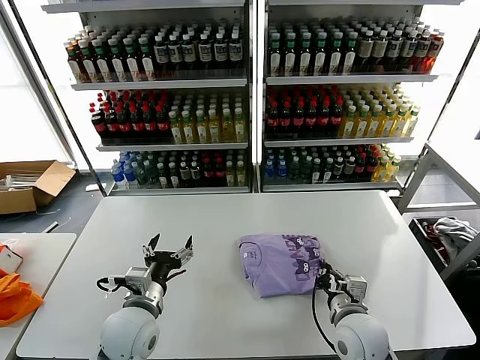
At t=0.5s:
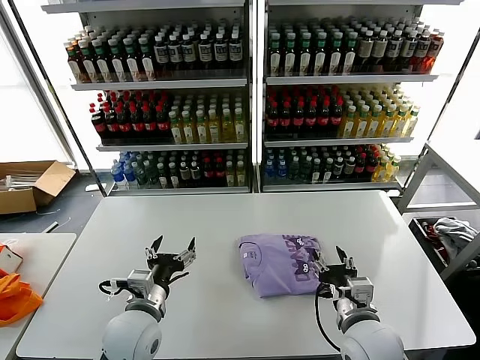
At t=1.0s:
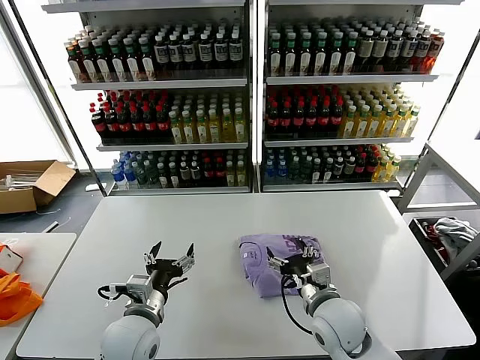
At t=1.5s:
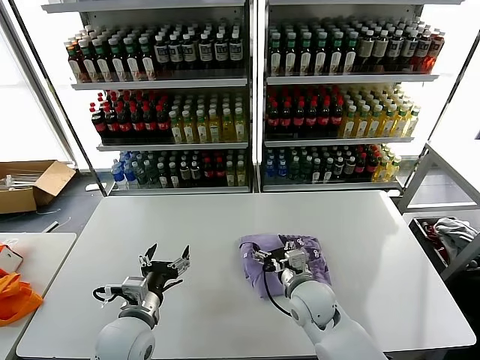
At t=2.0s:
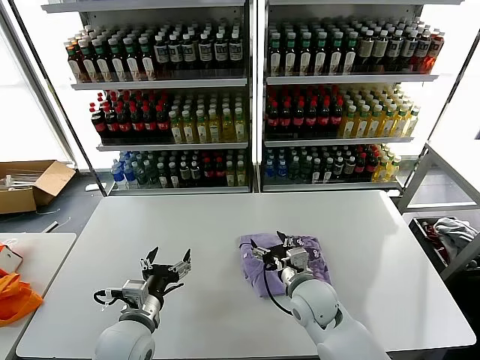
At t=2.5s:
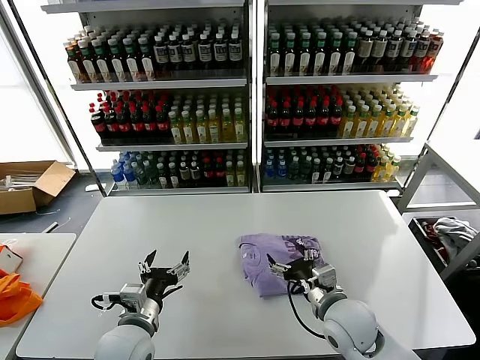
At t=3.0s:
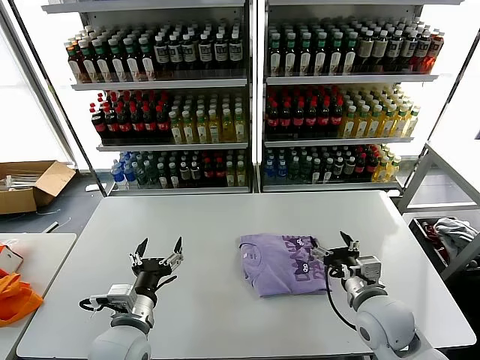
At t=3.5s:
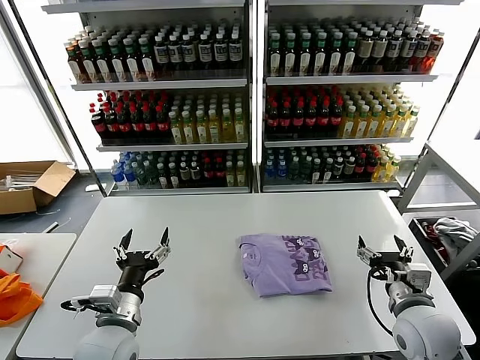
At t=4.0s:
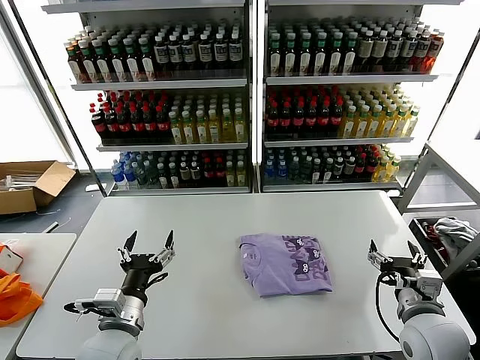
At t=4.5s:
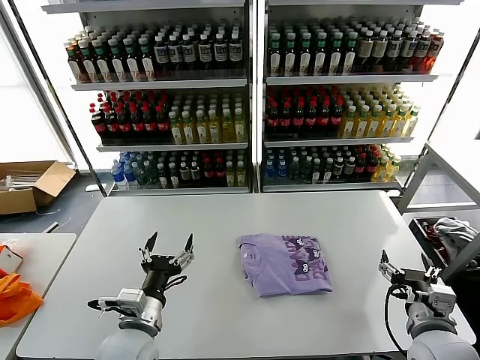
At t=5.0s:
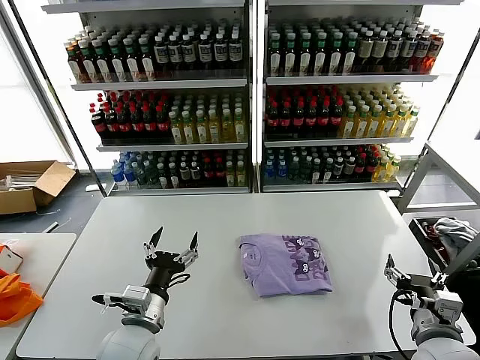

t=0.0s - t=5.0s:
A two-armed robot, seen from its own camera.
Task of the whole recording: fold and organize the clothes.
Step, t=0.0s - t=2.0s: Drag the clothes to the center of the table.
t=0.0s - t=2.5s: The right gripper travels forward and back again, approximately 10 cm each way, and opens its fingers.
t=2.5s - t=5.0s: The right gripper goes roughly 15 cm to the right and backward.

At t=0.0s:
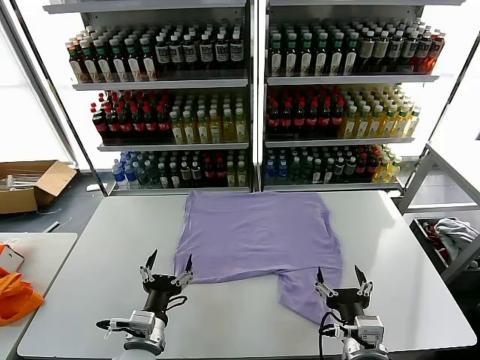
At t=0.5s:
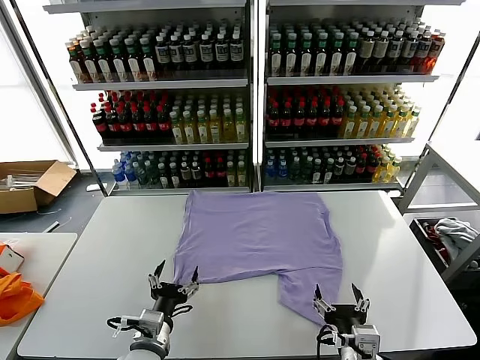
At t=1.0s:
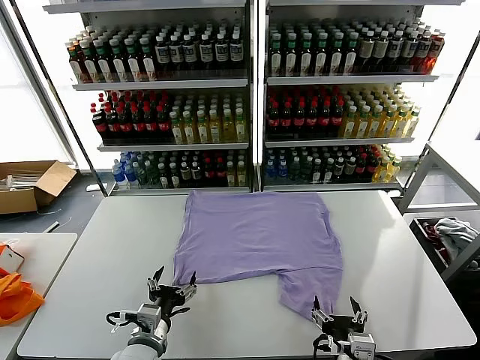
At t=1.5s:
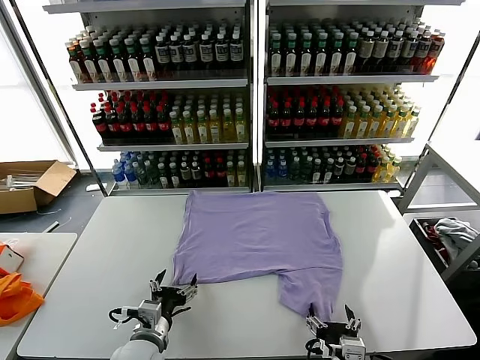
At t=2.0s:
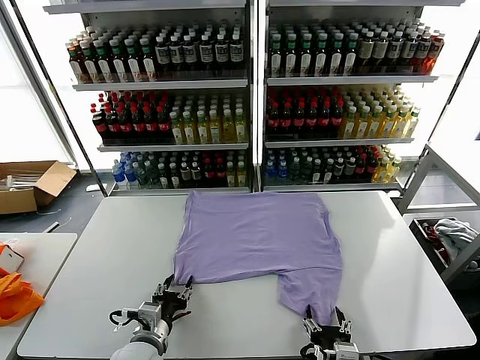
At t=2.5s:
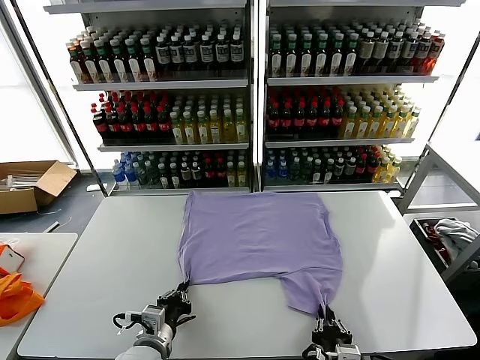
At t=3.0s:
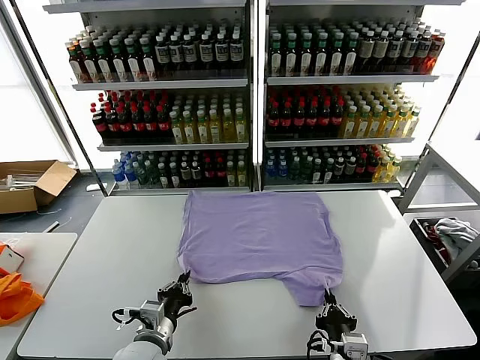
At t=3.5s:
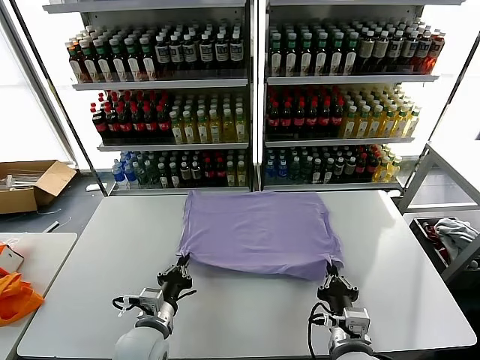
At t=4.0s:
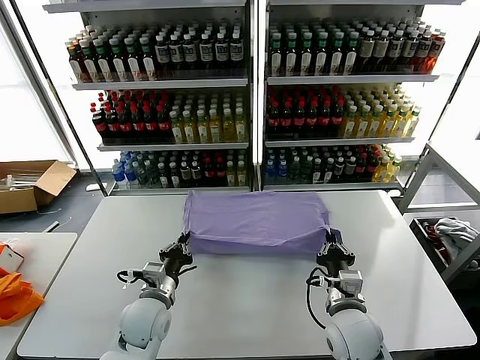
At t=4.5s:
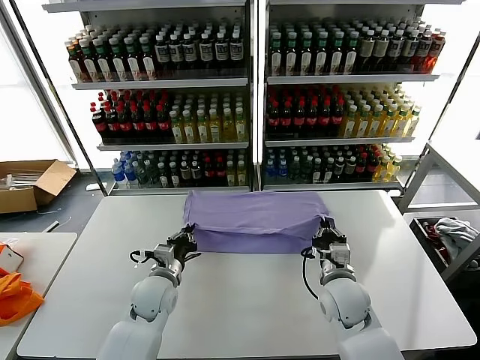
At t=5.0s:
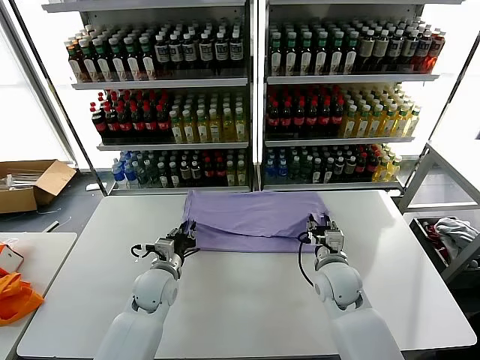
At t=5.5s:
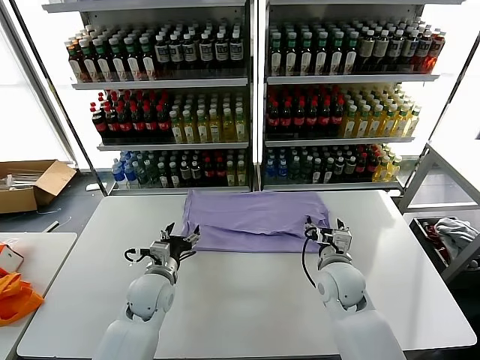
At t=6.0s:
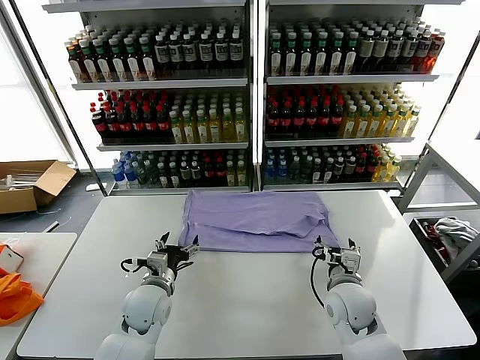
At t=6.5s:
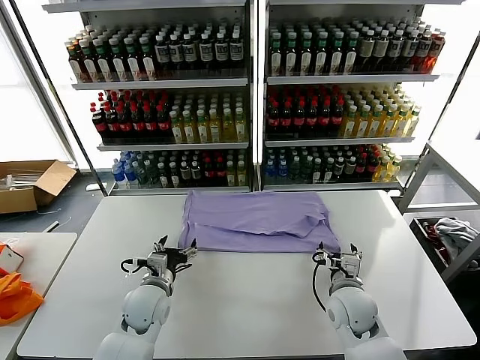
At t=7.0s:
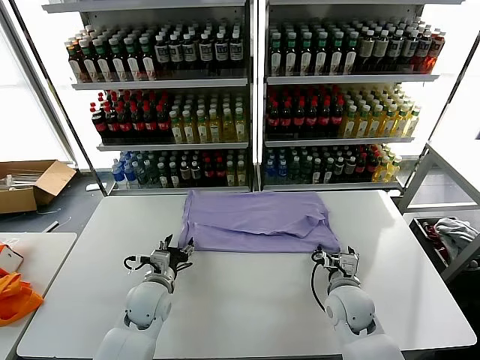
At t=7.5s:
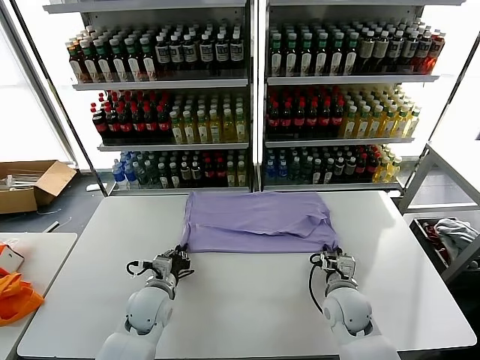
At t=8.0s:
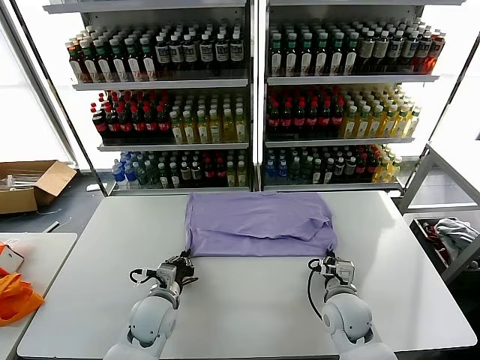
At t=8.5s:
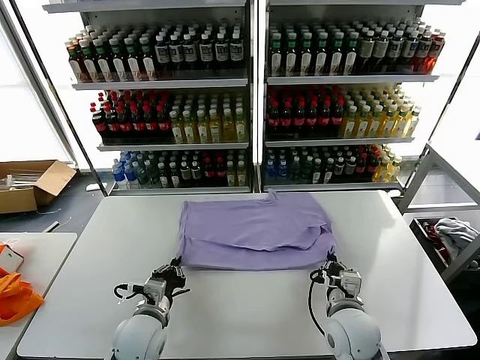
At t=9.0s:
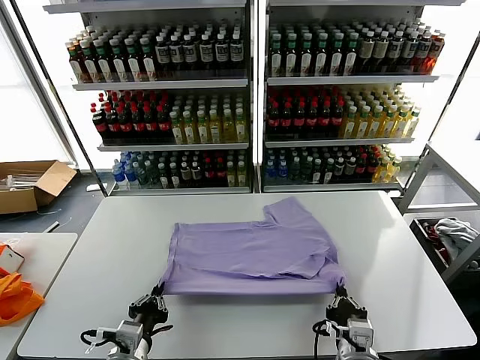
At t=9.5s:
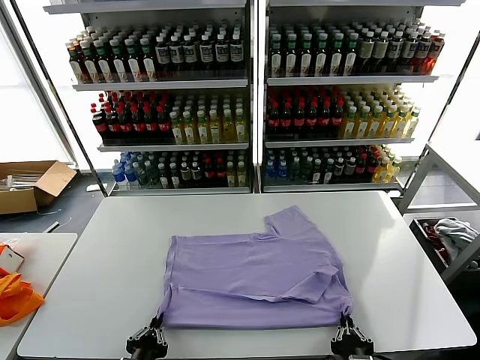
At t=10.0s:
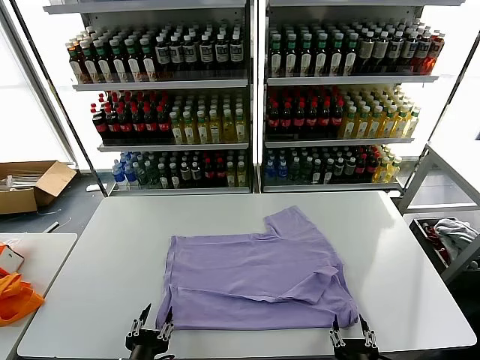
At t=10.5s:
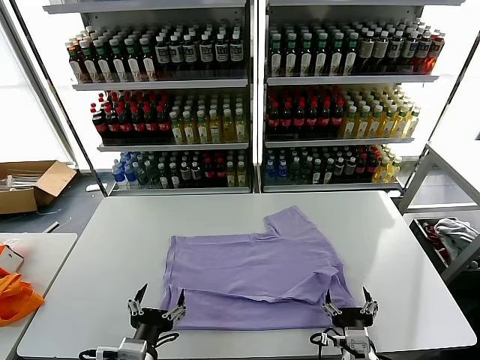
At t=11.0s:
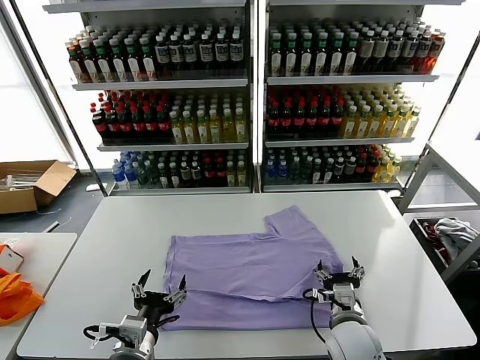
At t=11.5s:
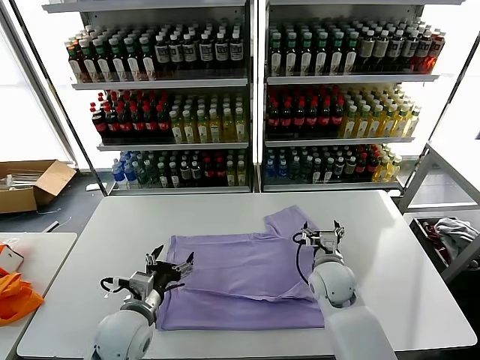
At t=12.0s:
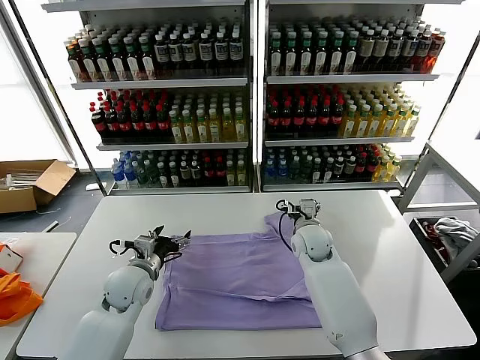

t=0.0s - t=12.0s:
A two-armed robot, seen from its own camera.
Task of the whole recording: fold and organize the clothes.
Step, t=0.0s - t=2.5s: use both grippers simultaneously to clamp the lower edge of the clothing fabric.
Step, t=3.0s - t=5.0s: use both grippers to drag the lower edge of the fabric forward and fold it over the upper edge.
Step, t=5.5s - t=9.5s: Drag the clothes downward with both gripper.
t=2.0s - t=4.0s: The left gripper moves forward, roughly 10 cm, and closes up, while the right gripper travels forward by about 15 cm, and closes up.
t=4.0s - t=6.0s: The left gripper opens its fingers; the right gripper opens.
t=6.0s - t=8.0s: The left gripper closes up, while the right gripper closes its fingers.
t=8.0s - t=10.0s: Both grippers move backward, approximately 20 cm. The left gripper opens, while the right gripper opens.
t=10.0s - t=12.0s: Both grippers travel together forward, about 30 cm. The left gripper opens its fingers.

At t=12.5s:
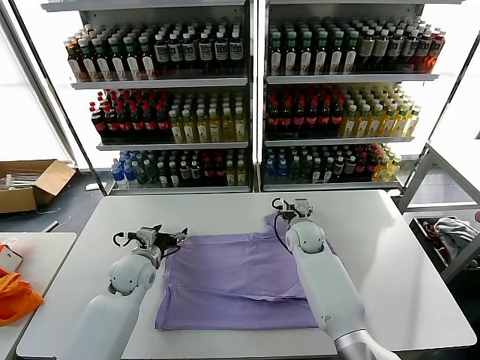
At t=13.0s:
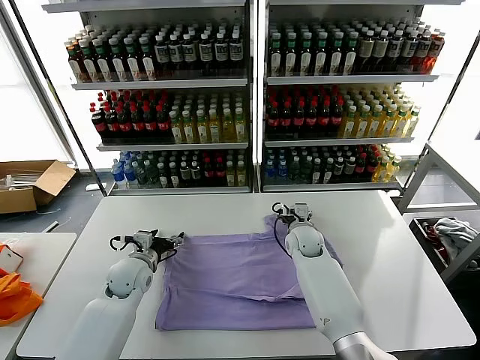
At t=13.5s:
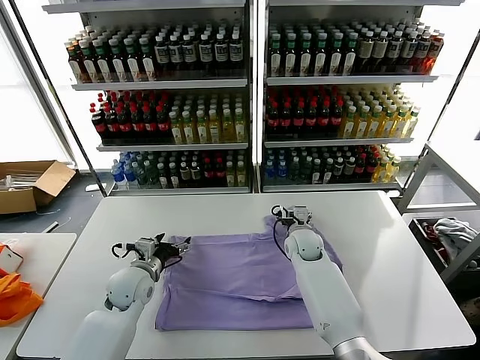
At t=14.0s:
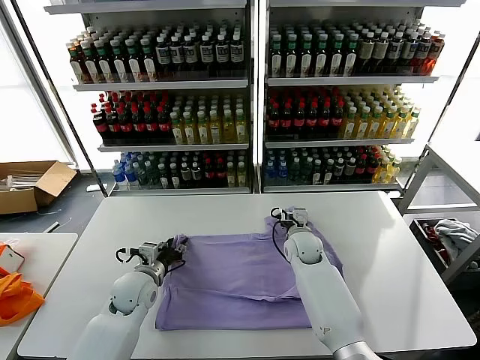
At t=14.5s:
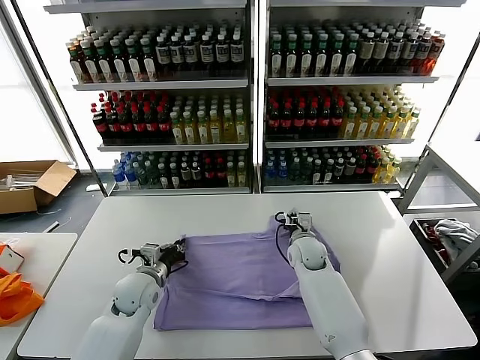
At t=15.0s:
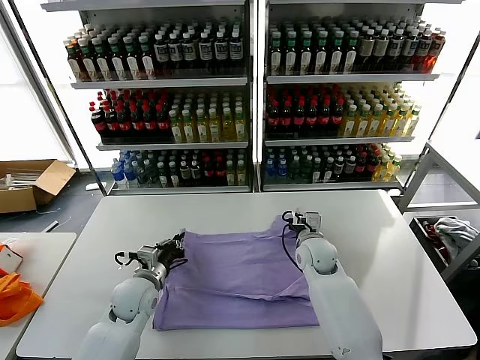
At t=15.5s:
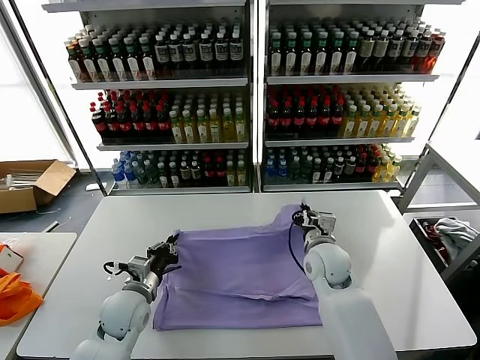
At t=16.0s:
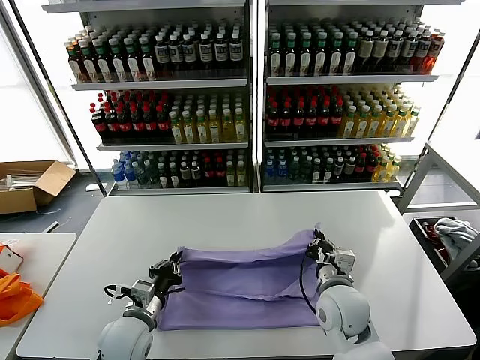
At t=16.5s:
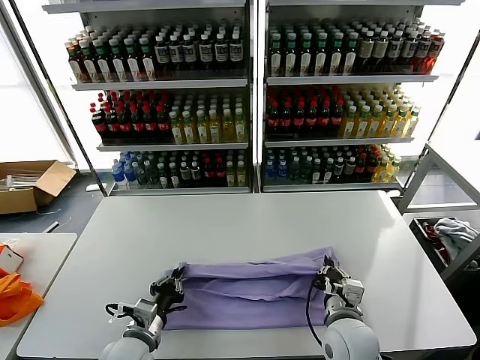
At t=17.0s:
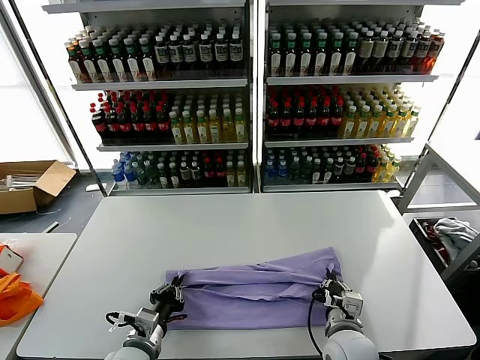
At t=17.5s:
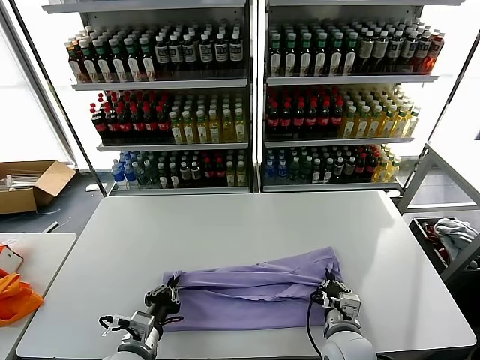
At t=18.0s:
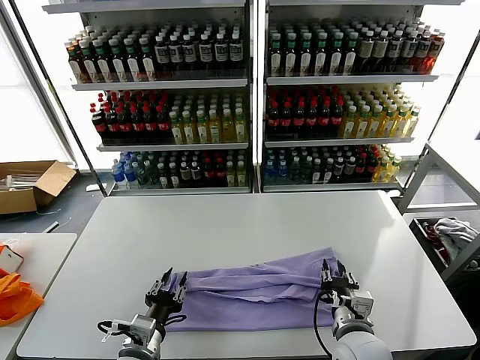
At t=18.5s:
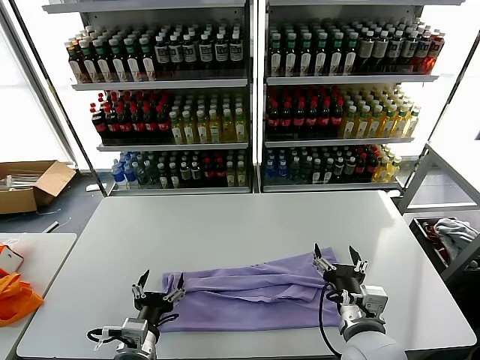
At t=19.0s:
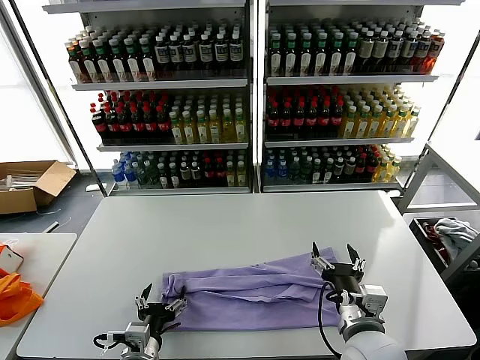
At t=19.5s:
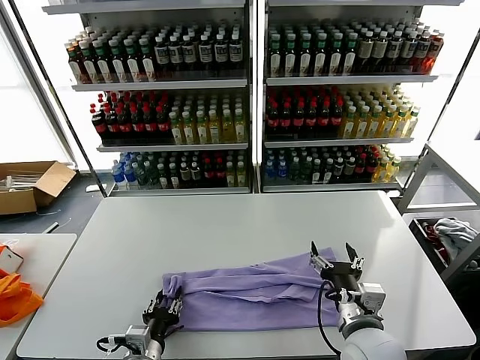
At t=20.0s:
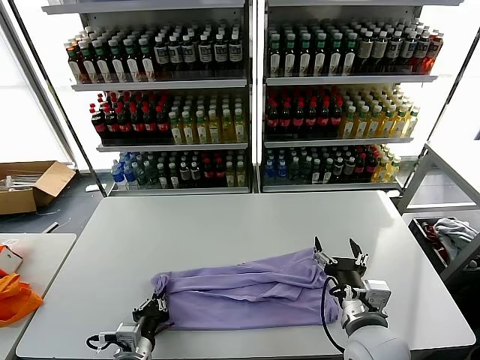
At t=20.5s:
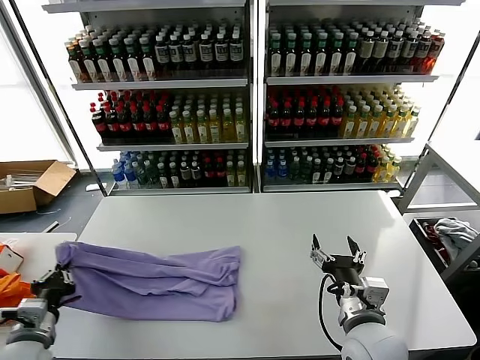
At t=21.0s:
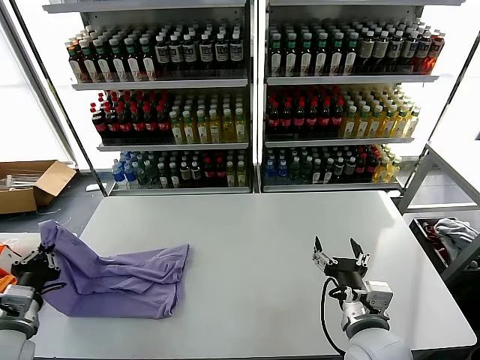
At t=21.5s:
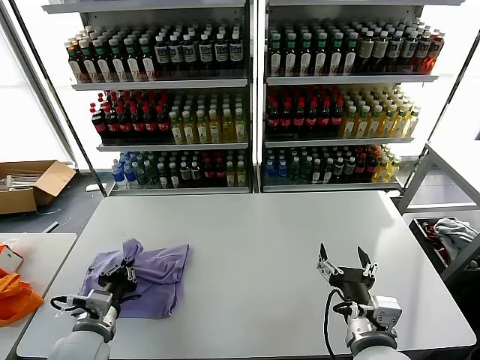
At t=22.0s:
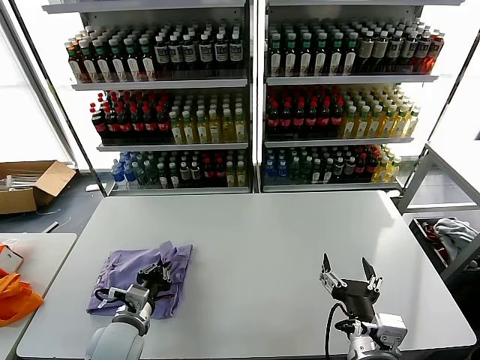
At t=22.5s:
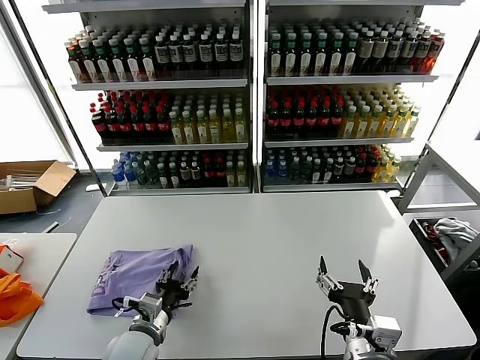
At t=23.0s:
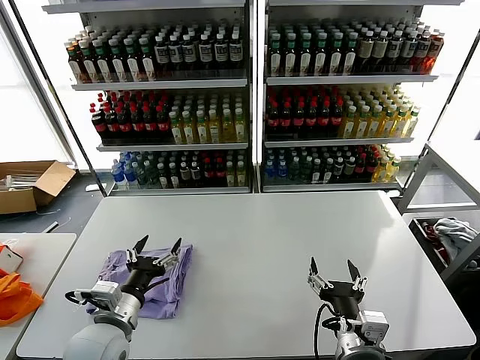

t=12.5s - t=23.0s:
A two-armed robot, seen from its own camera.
Task of the whole recording: fold and organize the clothes.
Step, t=12.5s - t=14.5s: use both grippers simultaneously to clamp the upper edge of the clothing fabric.
Step, t=15.0s - t=18.0s: use both grippers to drag the upper edge of the fabric backward and fold it over the lower edge.
Step, t=18.5s - t=19.5s: use the left gripper to clamp the left edge of the fabric.
Step, t=20.0s - t=22.5s: use the left gripper to drag the left edge of the fabric to the left and folds it over the right edge.
t=12.5s - t=14.5s: The right gripper closes, while the left gripper closes its fingers.
t=14.5s - t=16.5s: The left gripper shifts about 15 cm backward; the right gripper heads backward, covering some 25 cm.
t=16.5s - t=19.0s: The left gripper shifts roughly 5 cm backward, and opens, while the right gripper goes roughly 5 cm upward, and opens up.
t=19.0s - t=21.0s: The left gripper heads to the left and upward, covering some 25 cm, and closes its fingers.
t=21.0s - t=23.0s: The right gripper changes place by some 5 cm; the left gripper goes about 15 cm to the right, and opens up.
